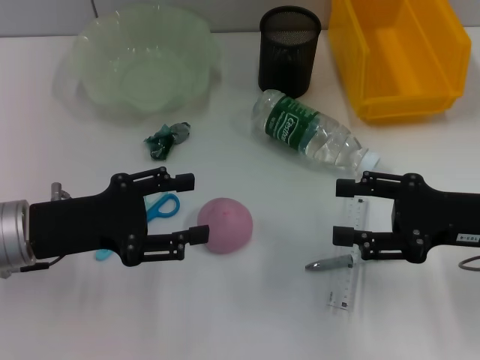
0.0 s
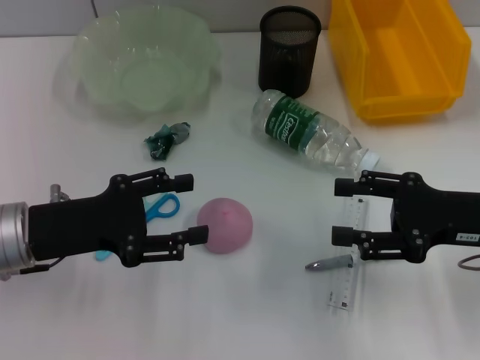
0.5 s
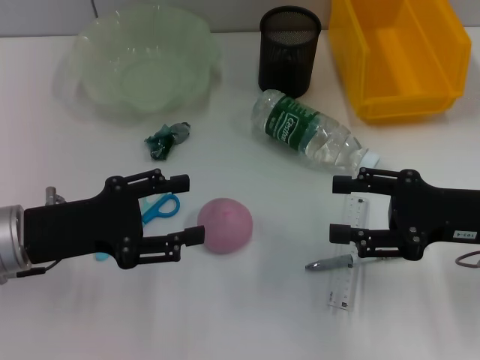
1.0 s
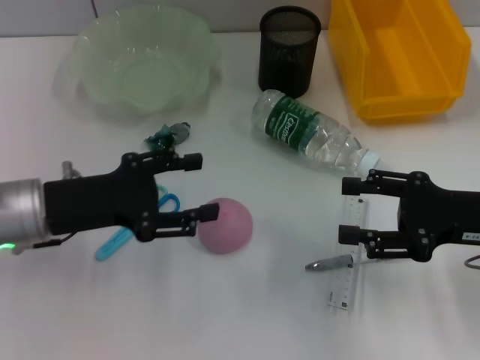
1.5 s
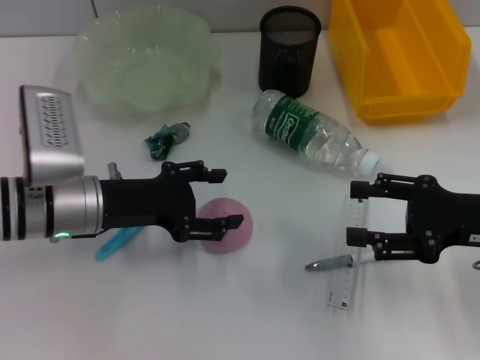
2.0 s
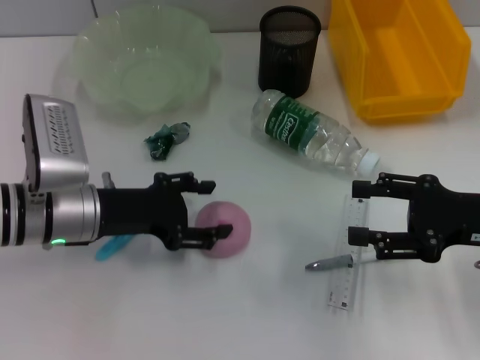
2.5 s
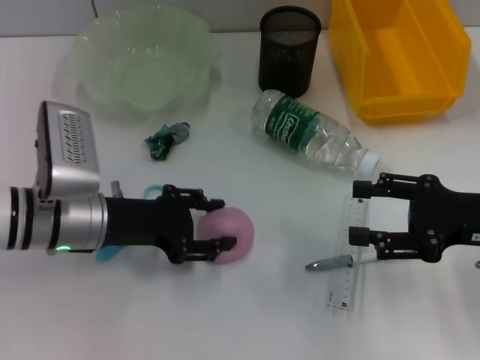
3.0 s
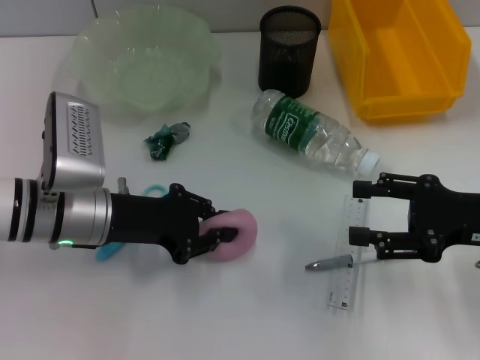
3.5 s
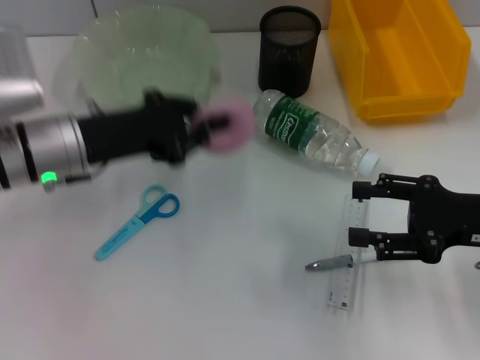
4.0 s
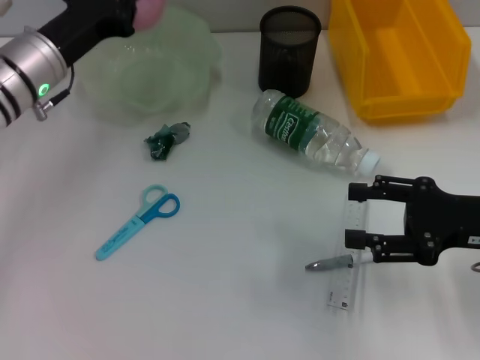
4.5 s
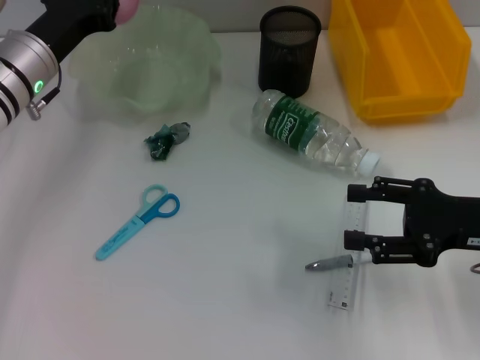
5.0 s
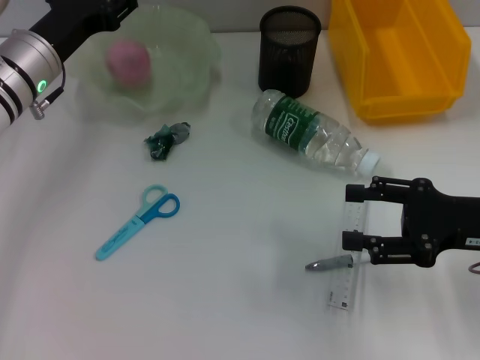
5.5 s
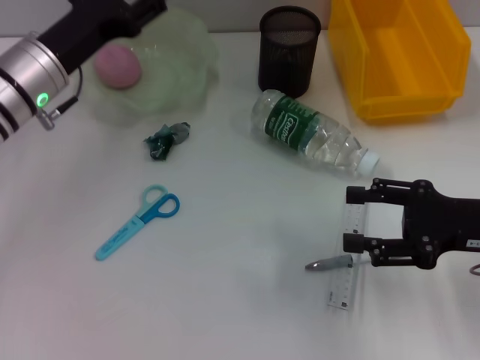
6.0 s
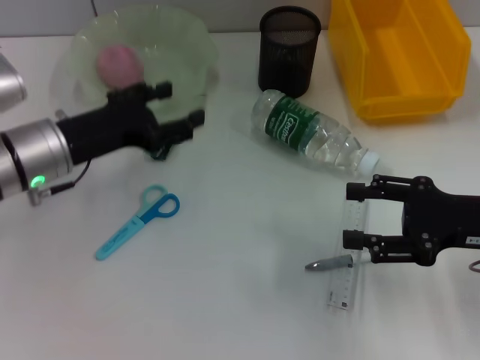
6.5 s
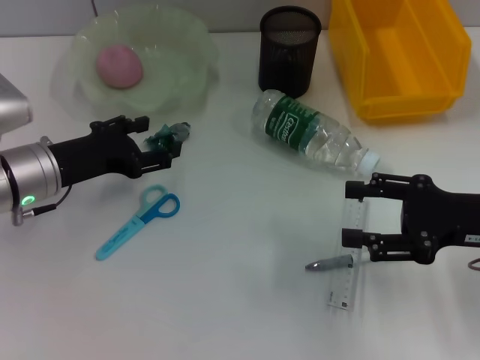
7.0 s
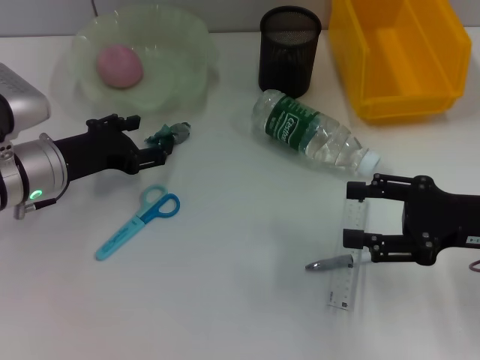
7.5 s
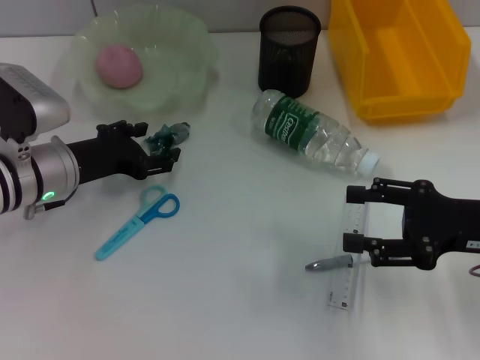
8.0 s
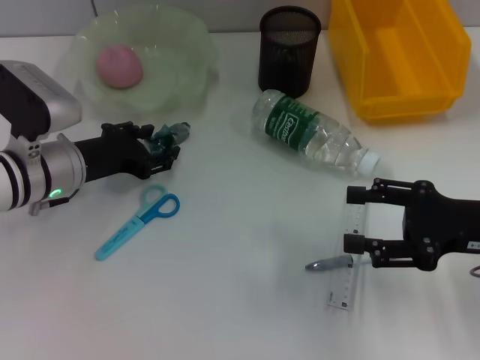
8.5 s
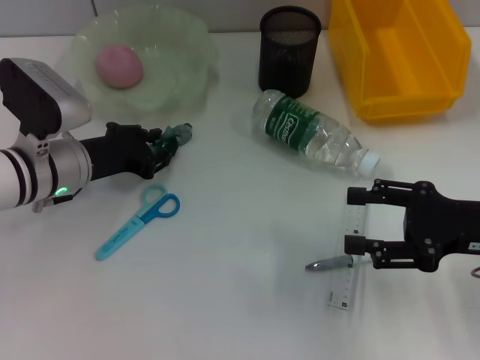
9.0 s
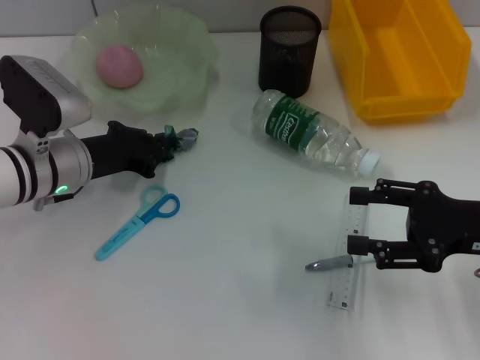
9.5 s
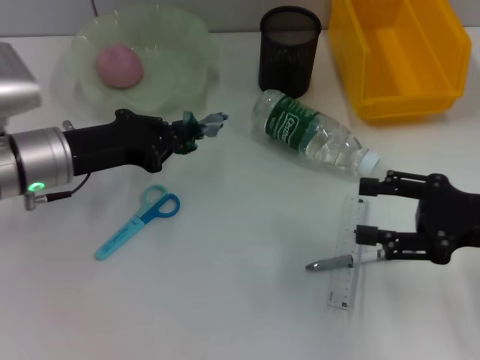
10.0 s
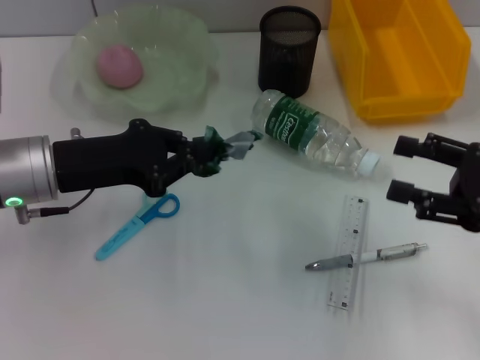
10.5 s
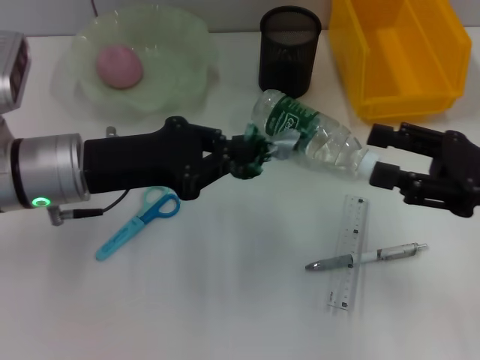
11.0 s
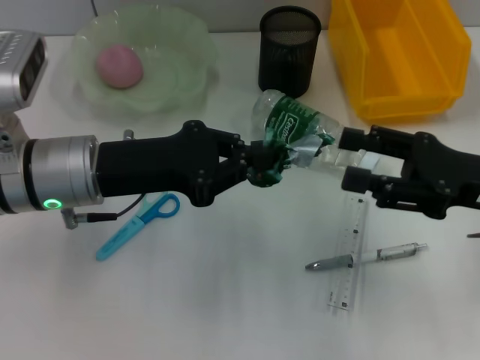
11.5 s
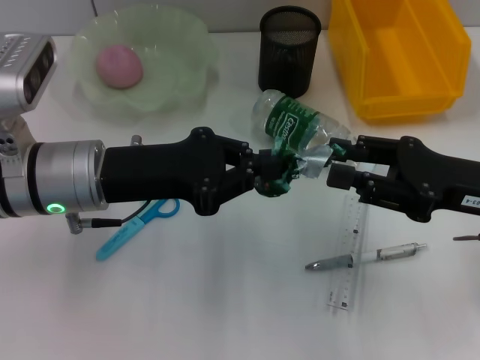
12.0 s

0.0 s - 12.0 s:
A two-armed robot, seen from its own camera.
Step, 0.0 s - 3.0 s: Grab the peach with the left hand.
Step, 3.5 s - 5.5 s: Place the peach into the fruit bowl with the left hand.
Step, 6.0 s - 9.5 s: Grab the plastic with the left hand.
0.0 s - 2.0 s: The left gripper shifts by roughly 5 cm.
2.0 s - 4.0 s: The left gripper moves roughly 5 cm, and closes up.
4.0 s - 6.0 s: The left gripper opens up.
6.0 s - 8.0 s: The left gripper shifts roughly 5 cm downward.
8.0 s - 10.0 s: The left gripper closes.
10.0 s - 12.0 s: The left gripper ends up approximately 5 cm from where it was.

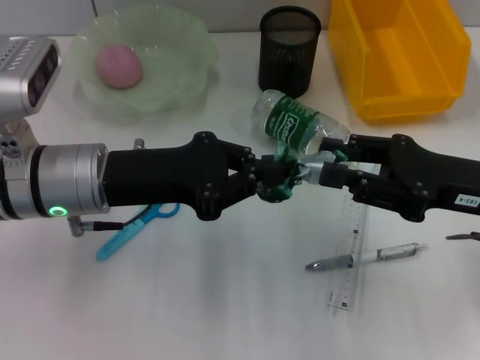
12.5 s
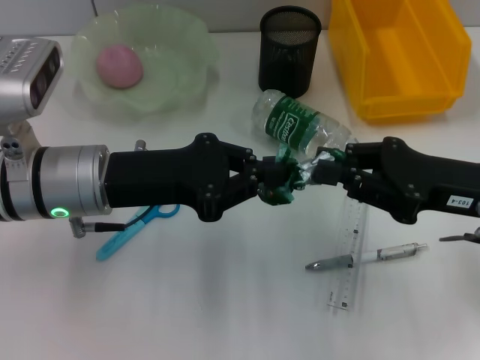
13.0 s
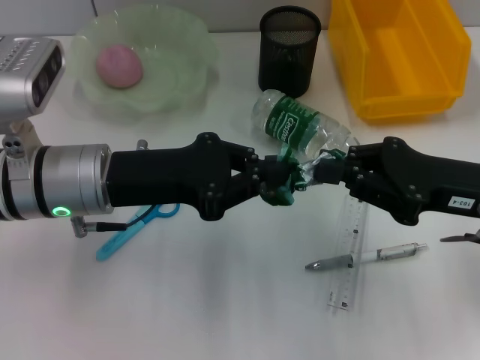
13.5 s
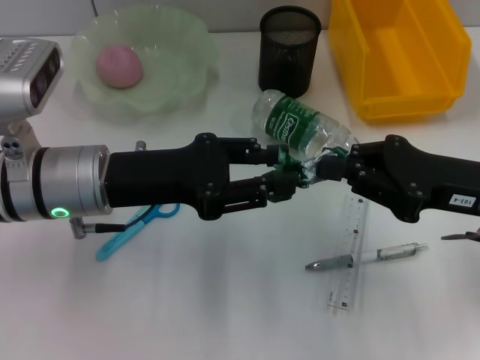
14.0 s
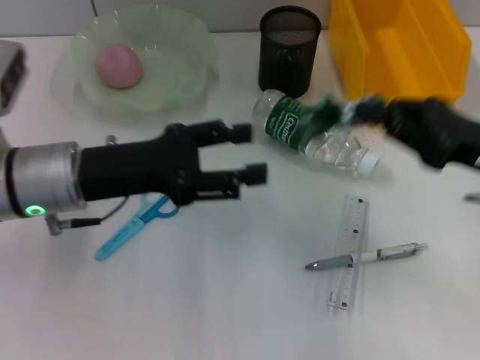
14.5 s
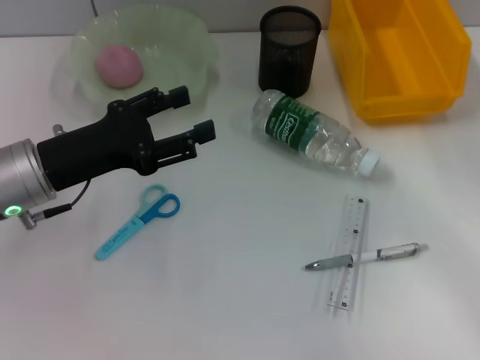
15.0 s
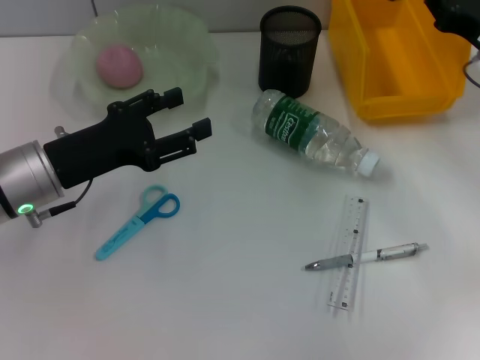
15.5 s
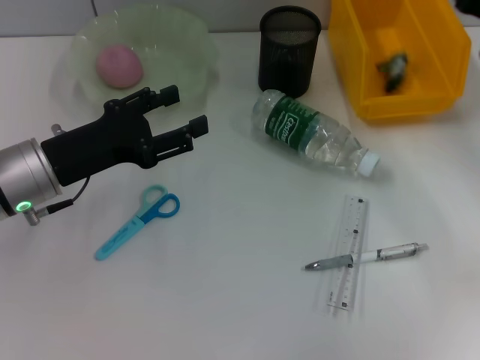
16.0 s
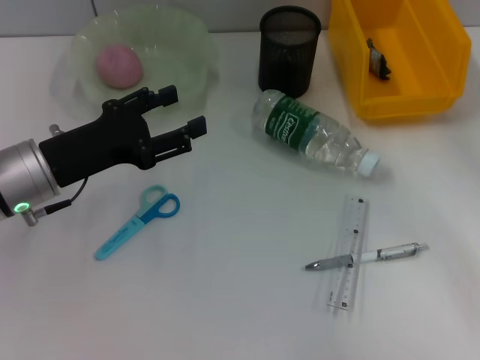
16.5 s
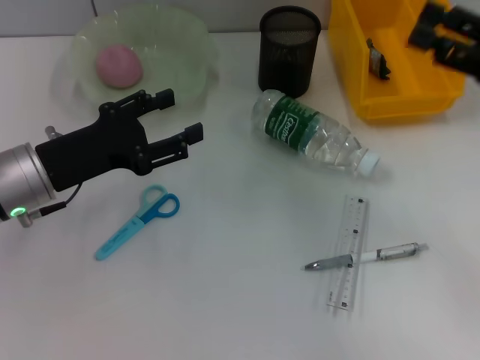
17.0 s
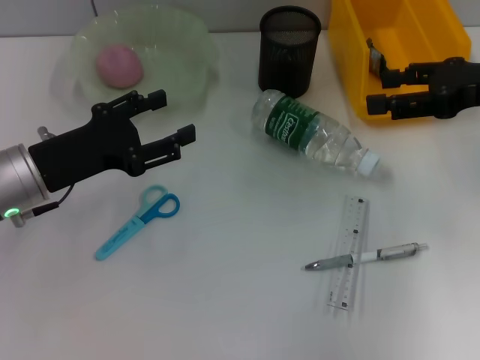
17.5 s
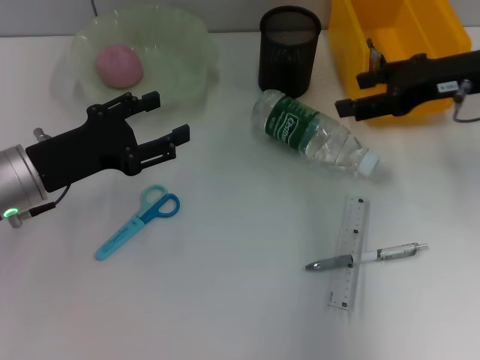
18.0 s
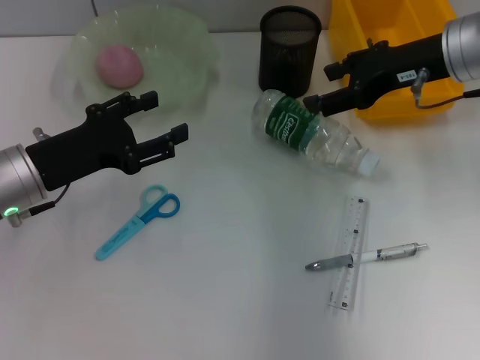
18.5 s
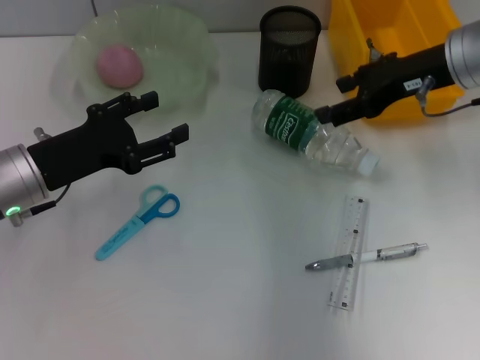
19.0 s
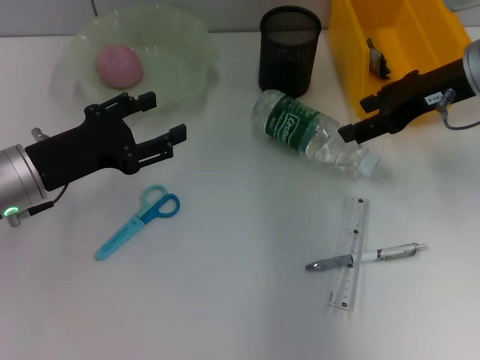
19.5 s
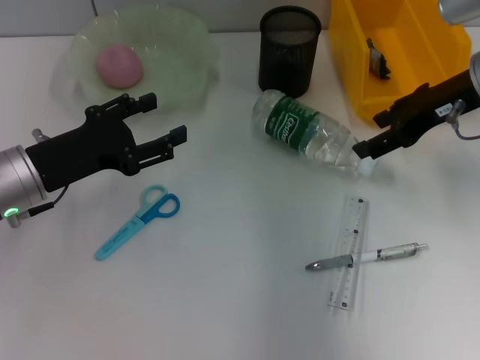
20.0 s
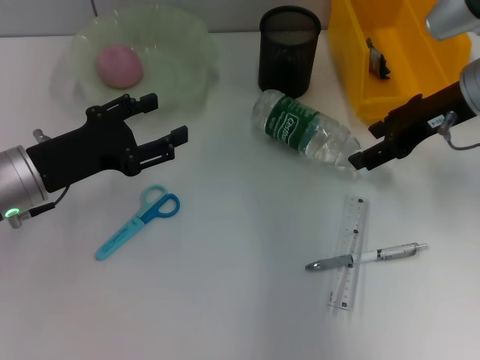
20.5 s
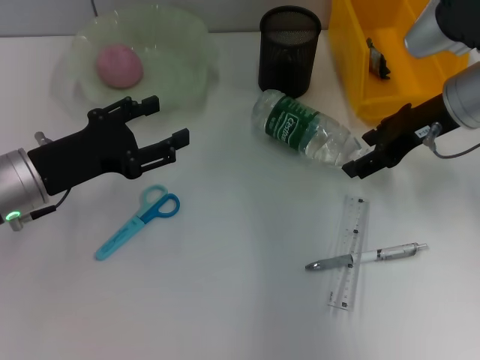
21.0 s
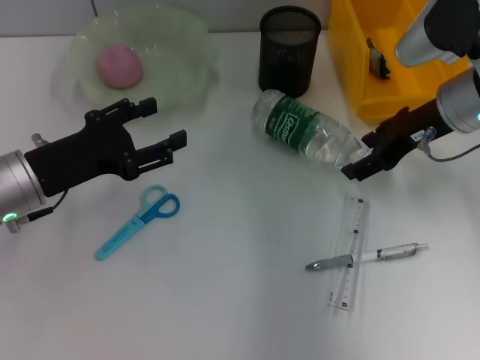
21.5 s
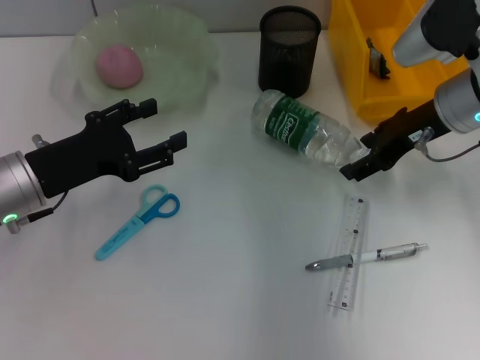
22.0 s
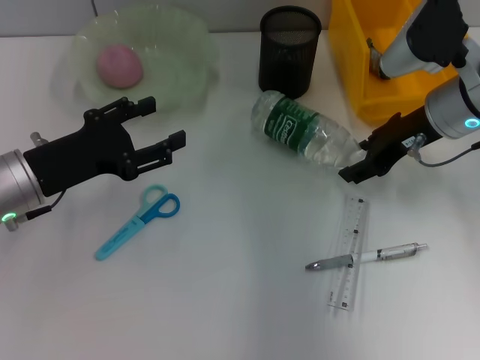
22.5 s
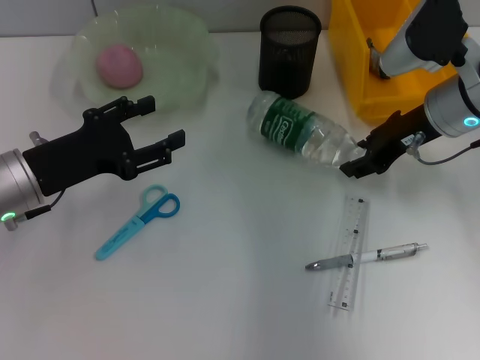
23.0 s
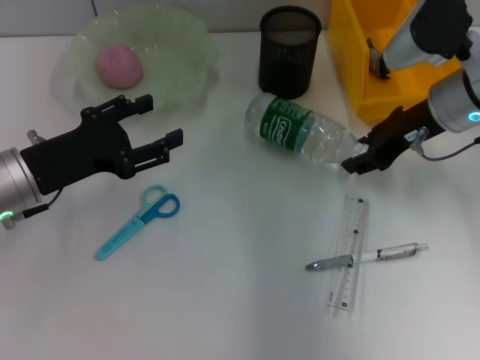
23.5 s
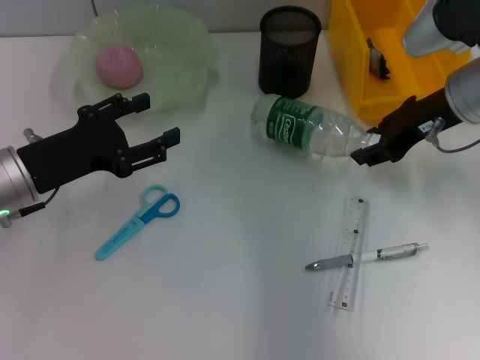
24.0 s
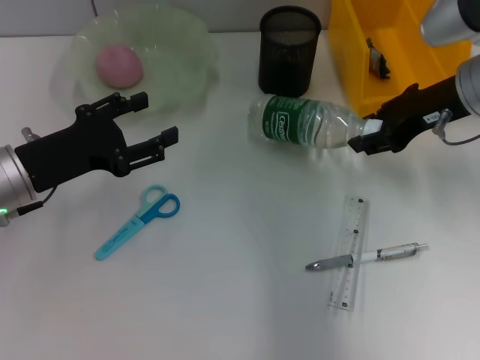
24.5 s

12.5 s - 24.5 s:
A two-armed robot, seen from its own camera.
Step, 14.5 s - 16.0 s: Place the plastic into the trash can with the right hand.
Step, 16.5 s - 23.0 s: Grab the water bottle with the right hand.
12.5 s - 14.5 s: The left gripper opens up; the right gripper closes its fingers.
14.5 s - 16.5 s: The right gripper moves forward, approximately 5 cm, and opens up.
16.5 s - 18.5 s: The right gripper moves to the left, forward and upward, some 15 cm.
18.5 s - 20.5 s: There are only small adjustments of the grippers.
20.5 s - 24.5 s: The grippers make only small movements.

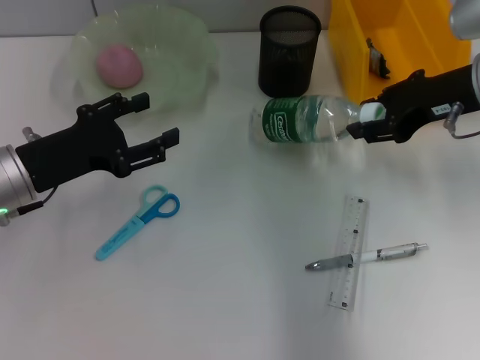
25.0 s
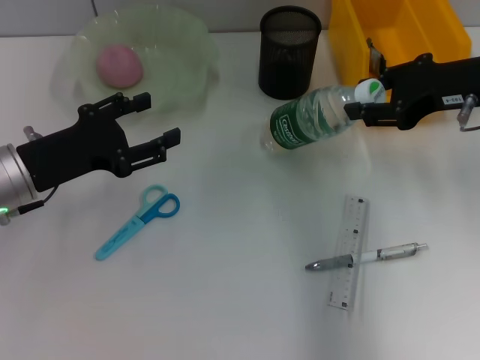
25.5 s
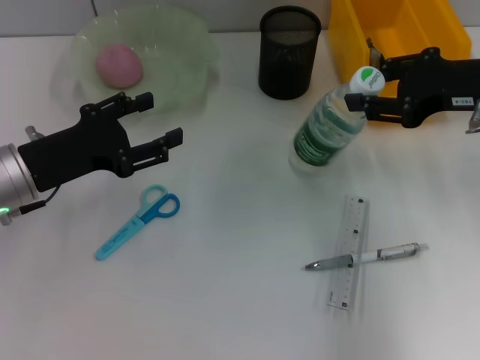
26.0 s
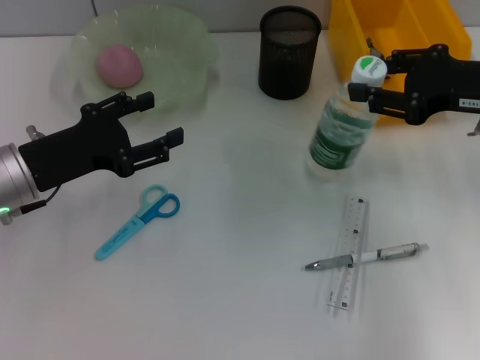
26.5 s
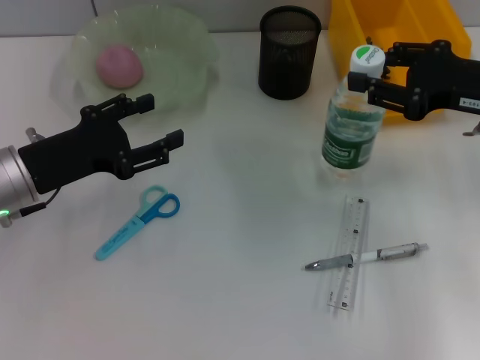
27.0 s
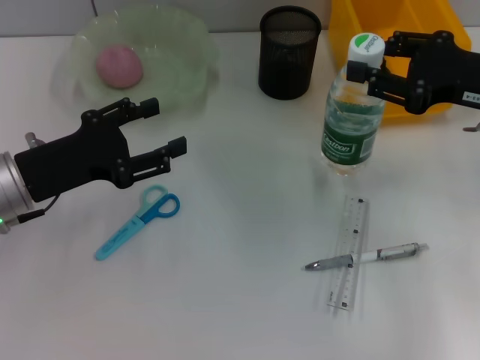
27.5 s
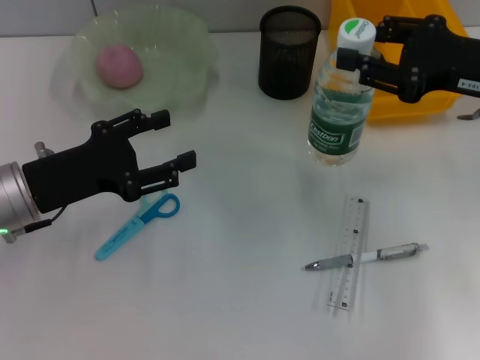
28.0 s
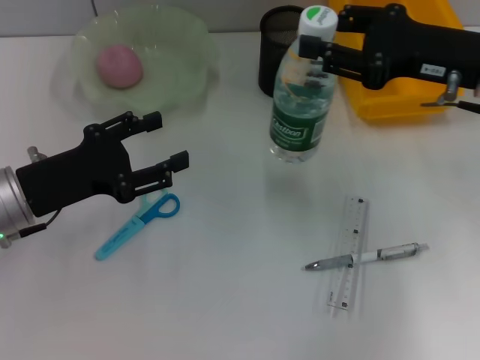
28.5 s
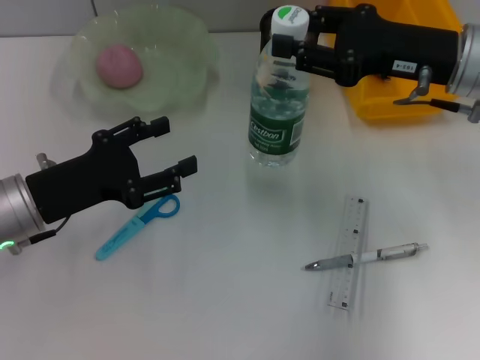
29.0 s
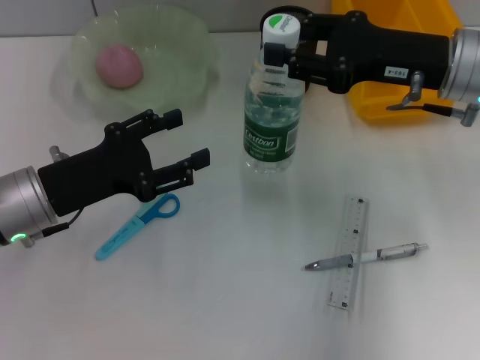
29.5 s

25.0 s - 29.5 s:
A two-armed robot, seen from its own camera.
25.0 s - 27.0 s: The right gripper moves approximately 5 cm.
27.0 s - 29.5 s: The right gripper shifts approximately 5 cm to the left.
